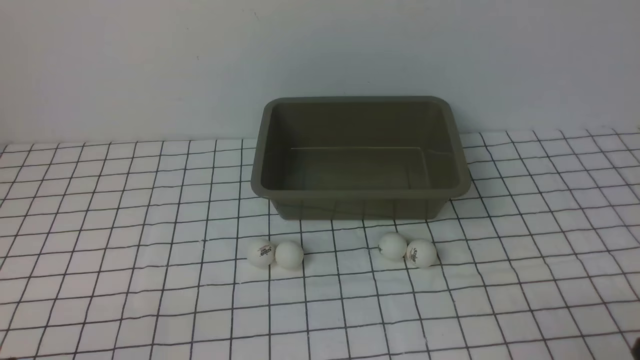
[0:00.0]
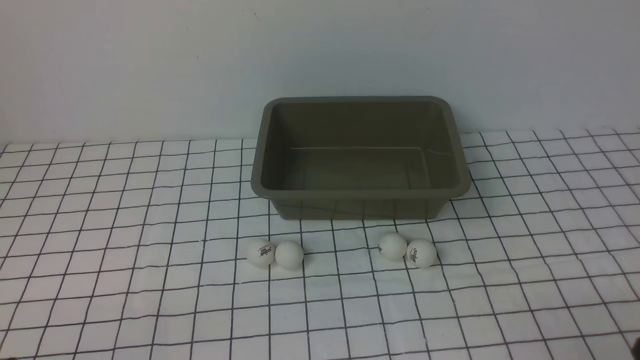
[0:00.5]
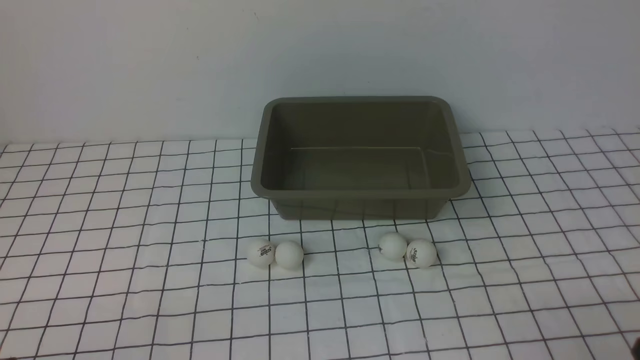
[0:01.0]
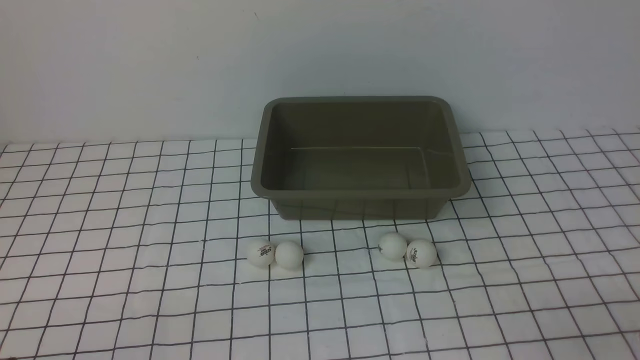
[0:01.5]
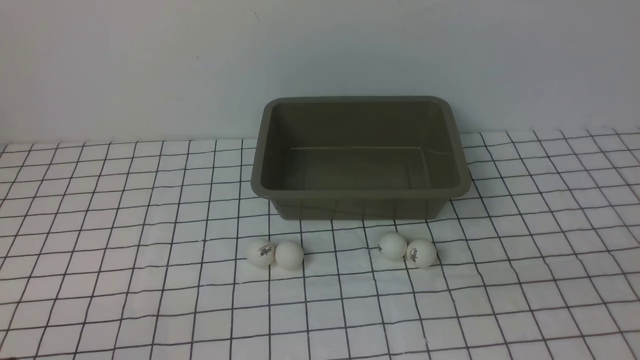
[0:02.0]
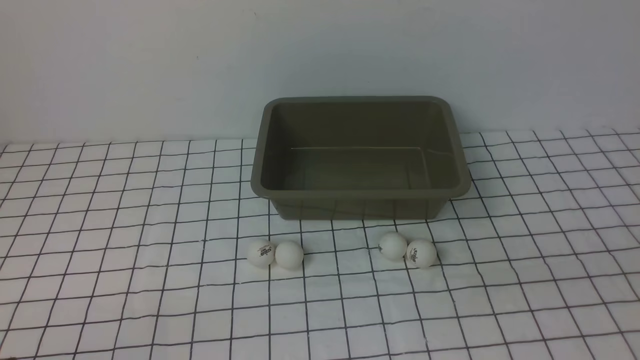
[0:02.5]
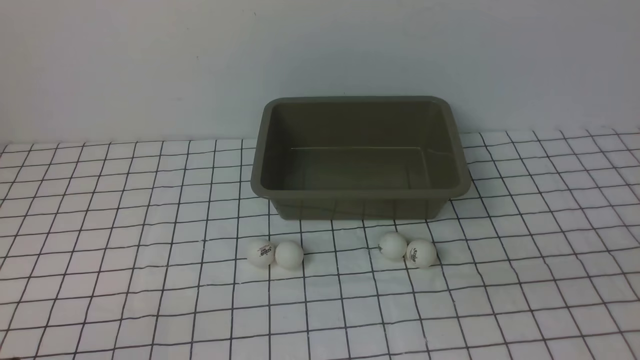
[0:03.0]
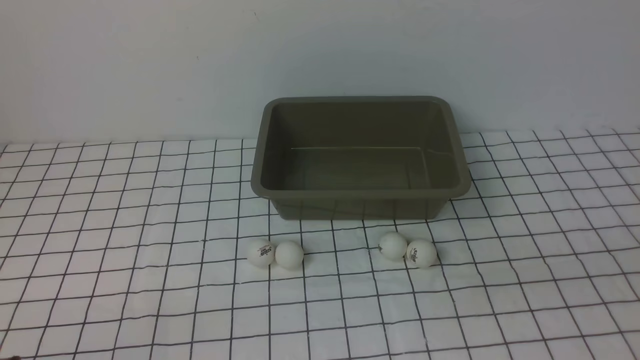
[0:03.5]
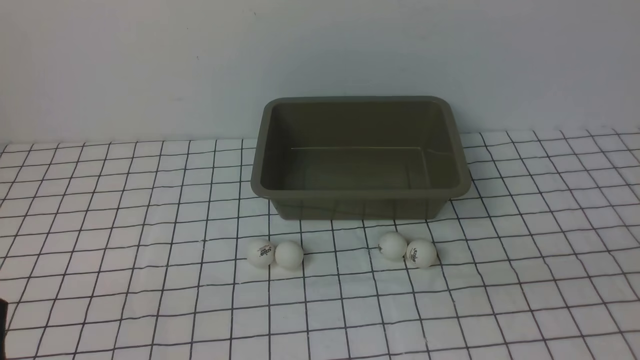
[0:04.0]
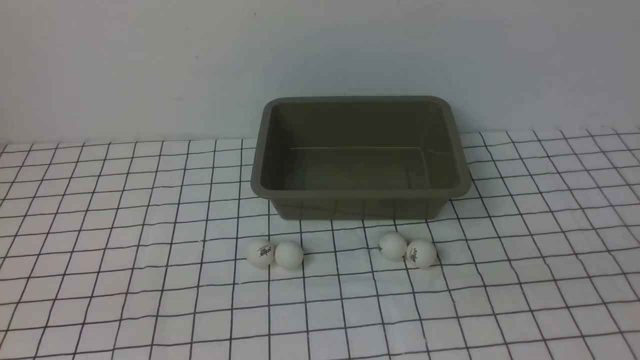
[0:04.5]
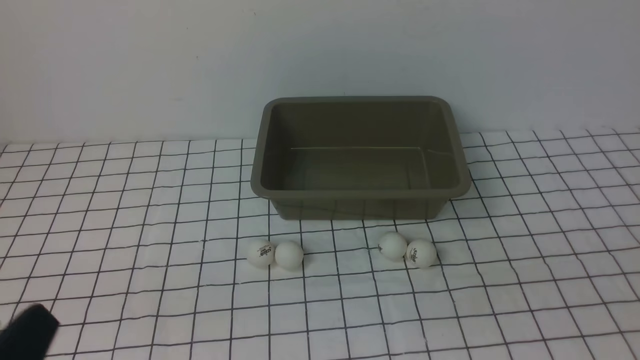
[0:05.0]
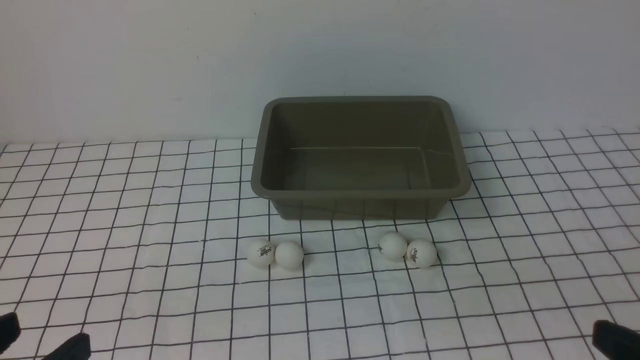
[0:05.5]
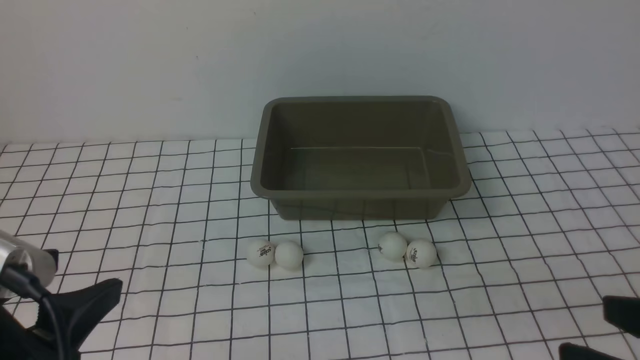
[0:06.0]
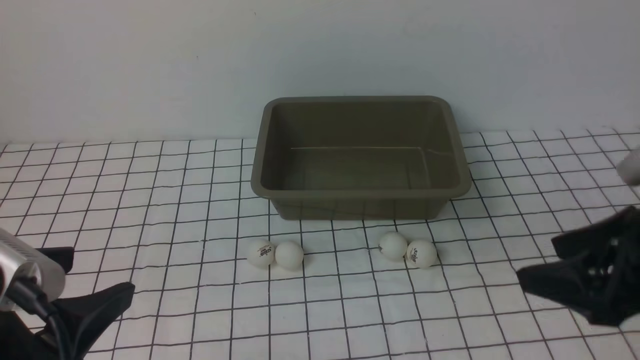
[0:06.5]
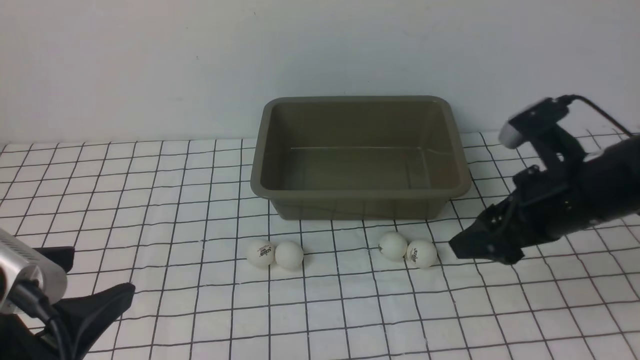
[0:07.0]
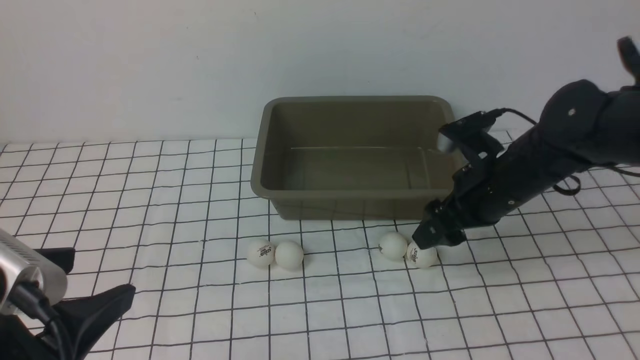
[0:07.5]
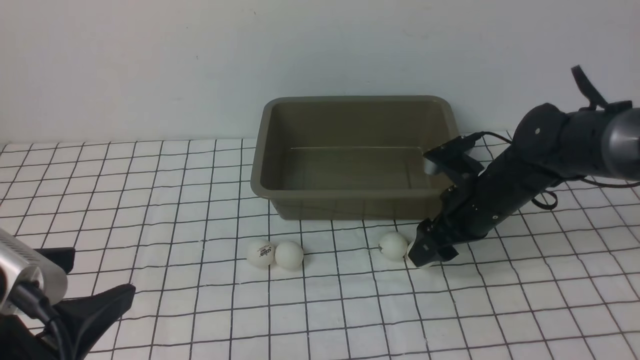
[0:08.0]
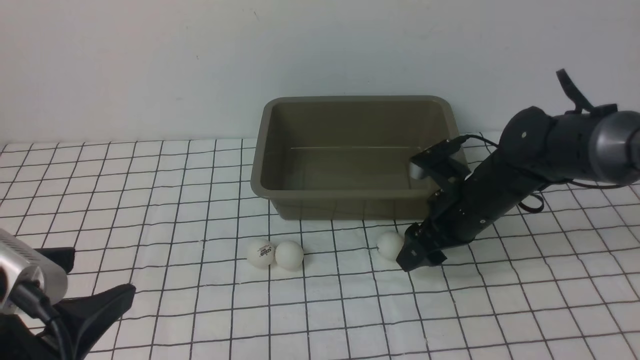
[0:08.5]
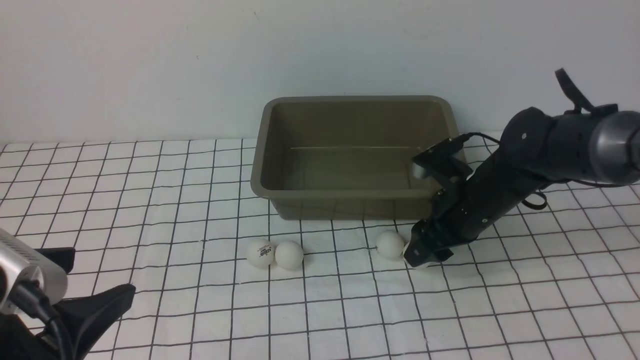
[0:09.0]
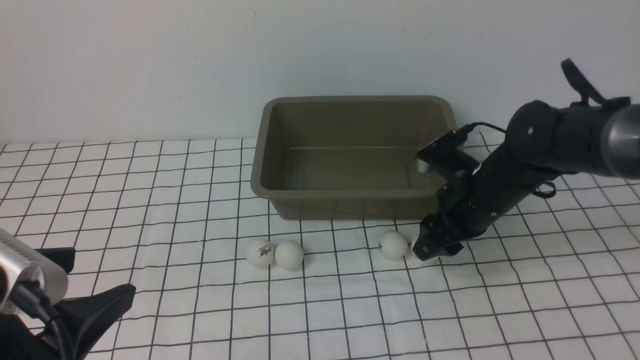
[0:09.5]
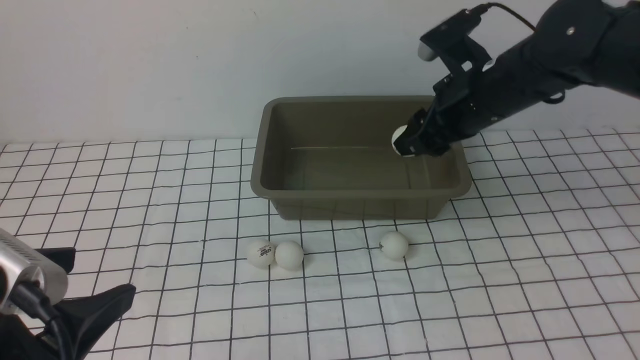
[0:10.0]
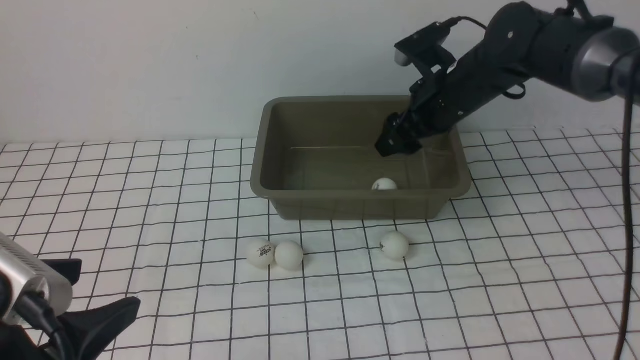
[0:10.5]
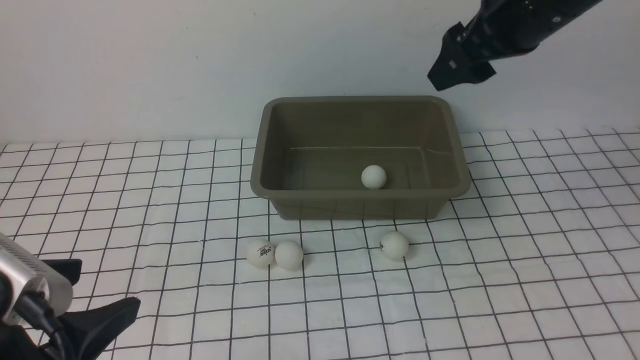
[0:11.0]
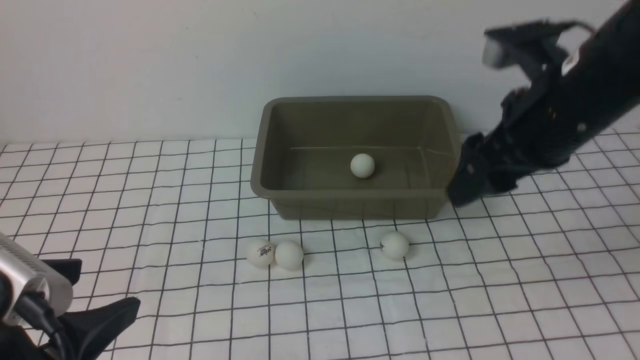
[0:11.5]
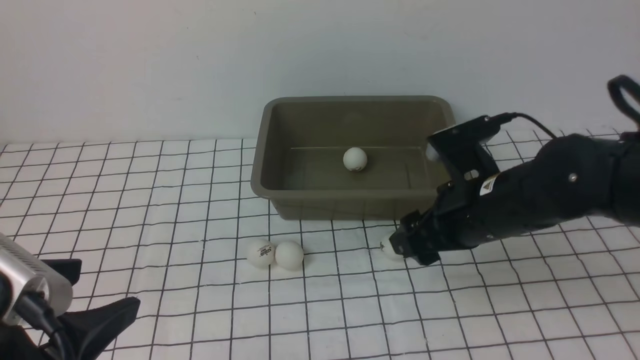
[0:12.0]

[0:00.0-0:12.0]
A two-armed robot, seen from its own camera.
Step, 0:00.0 to 0:09.5: use the right arm to clamp the table tennis ball closest to it.
Step, 0:10.0 to 0:10.5: use the right arm to put the table tennis ball into the box.
0:04.0 to 0:06.0: The right gripper shifts roughly 5 cm forward. Meanwhile the left gripper travels upward by roughly 10 cm.
0:06.0 to 0:08.0: The right gripper shifts some 30 cm forward and downward.
0:08.0 to 0:10.0: The right gripper moves upward, approximately 10 cm, and closes up.
0:10.0 to 0:12.0: The right gripper heads backward, covering about 10 cm, reaches about 10 cm upward, then returns, and opens its fingers.

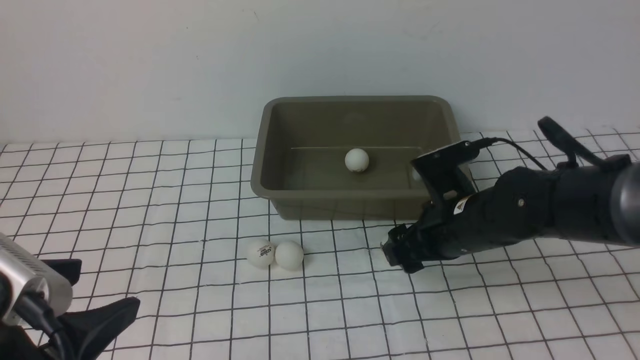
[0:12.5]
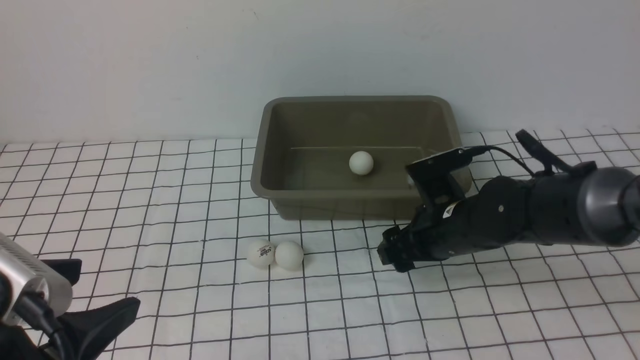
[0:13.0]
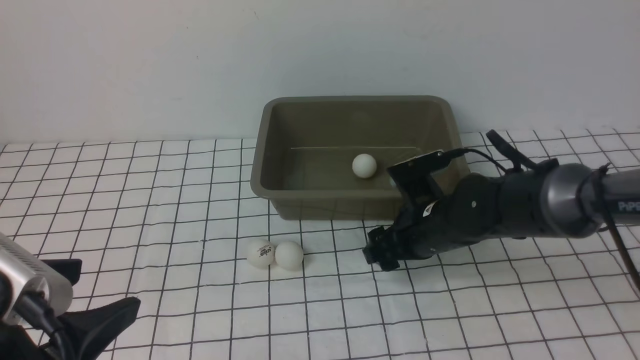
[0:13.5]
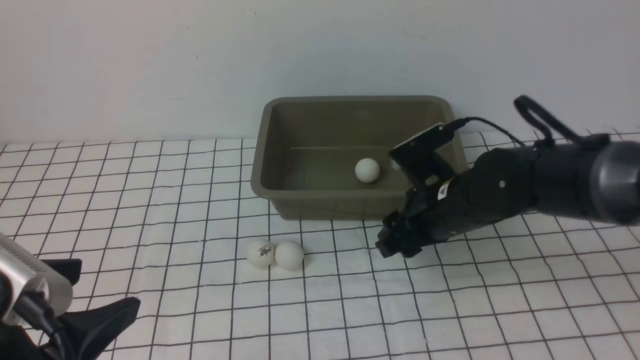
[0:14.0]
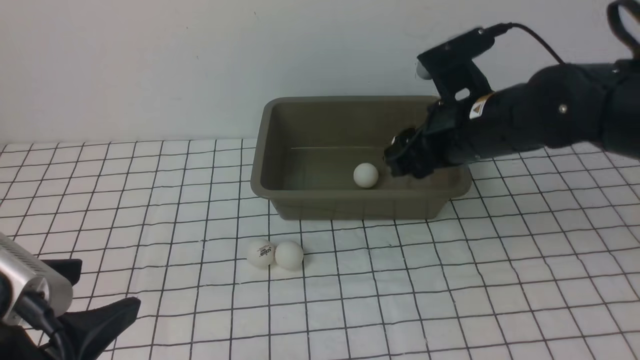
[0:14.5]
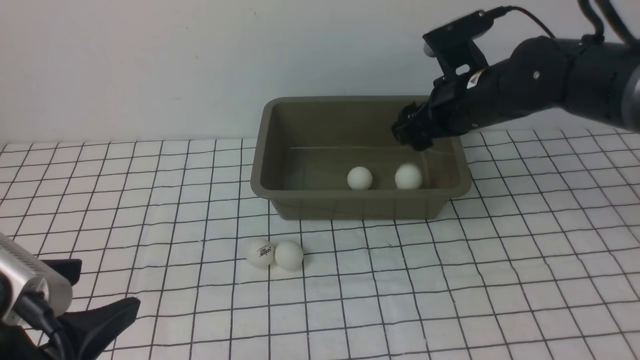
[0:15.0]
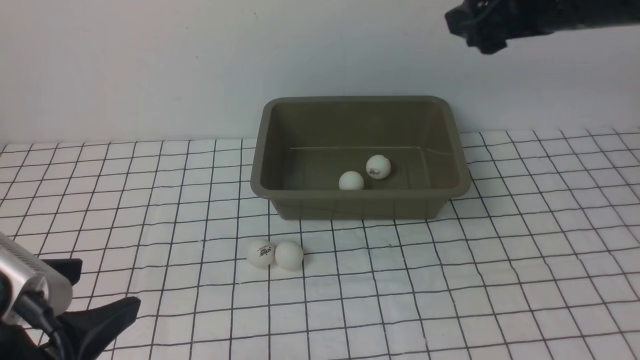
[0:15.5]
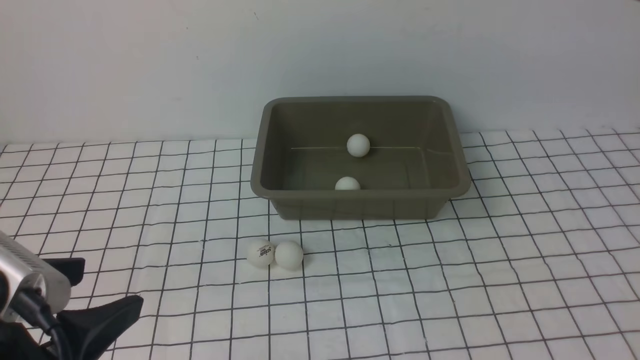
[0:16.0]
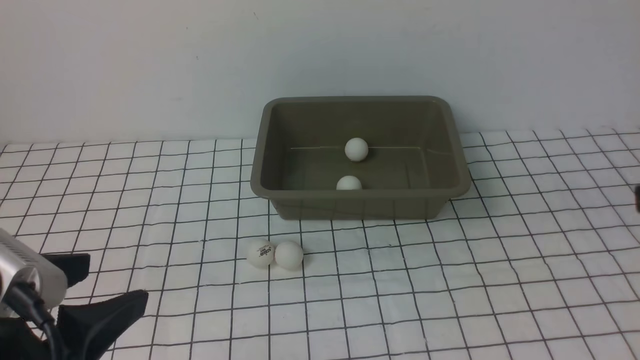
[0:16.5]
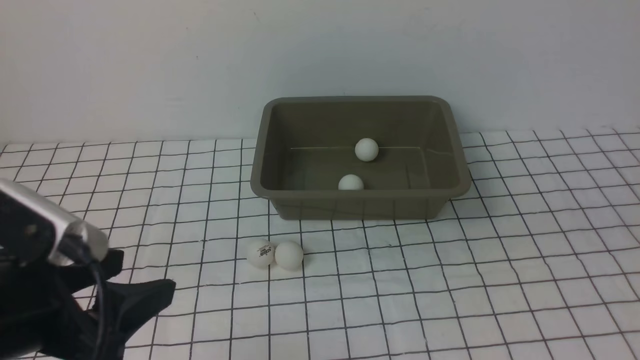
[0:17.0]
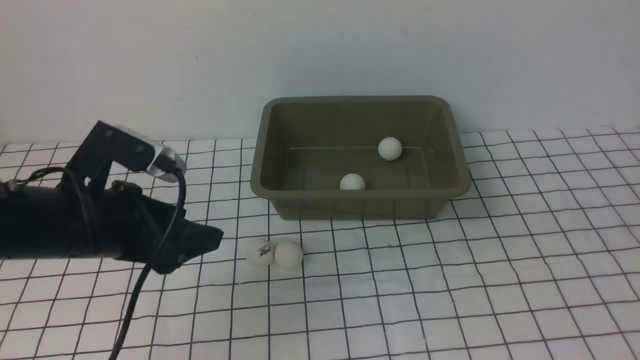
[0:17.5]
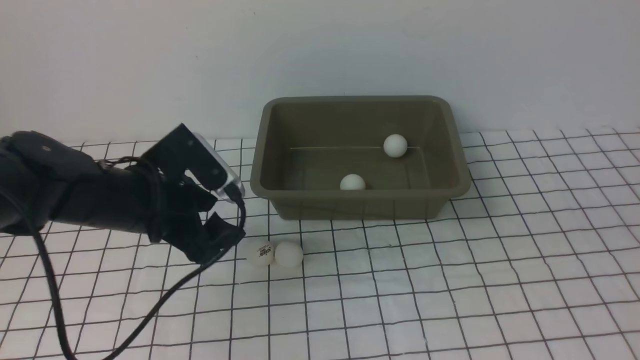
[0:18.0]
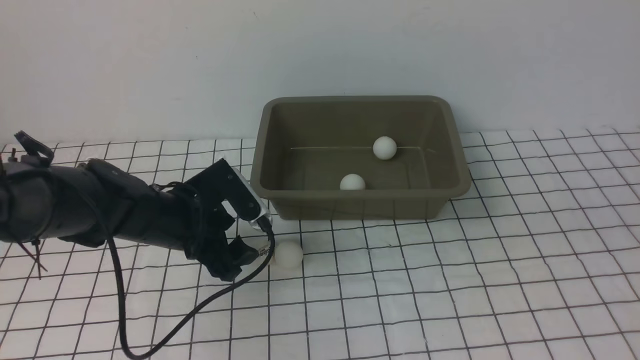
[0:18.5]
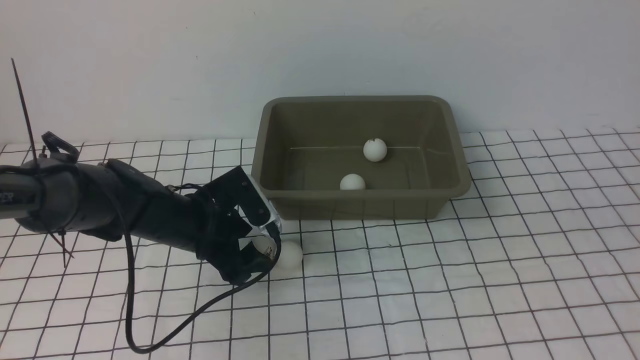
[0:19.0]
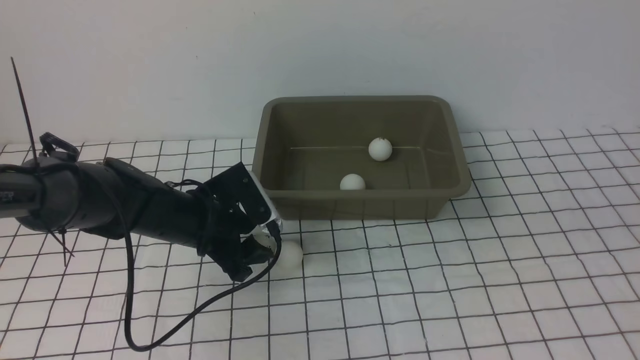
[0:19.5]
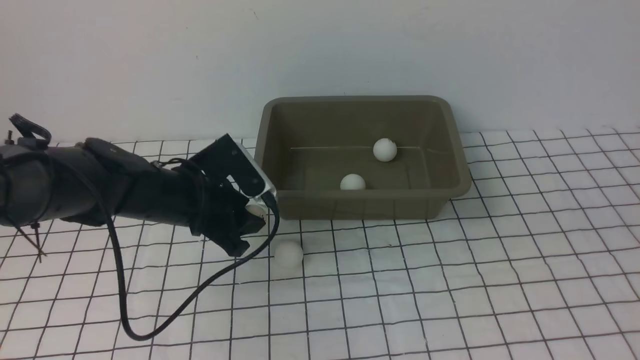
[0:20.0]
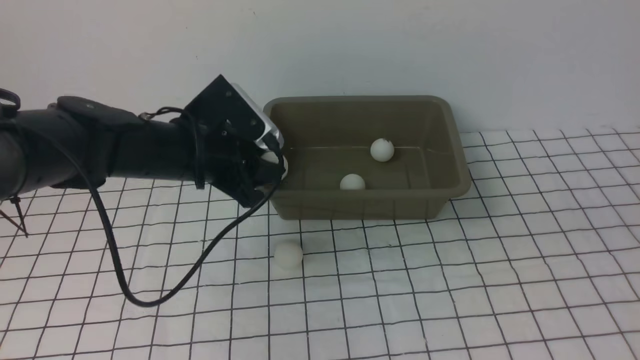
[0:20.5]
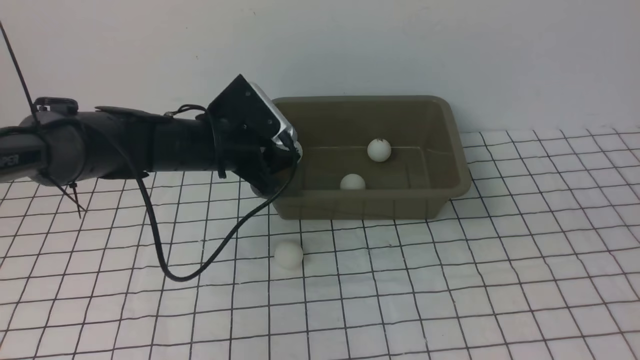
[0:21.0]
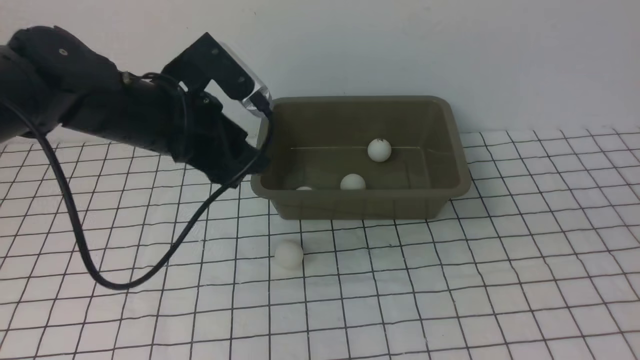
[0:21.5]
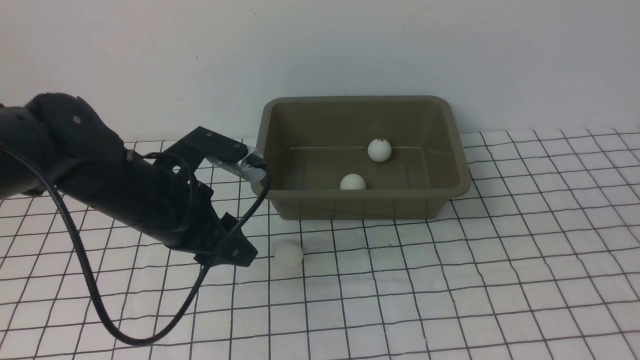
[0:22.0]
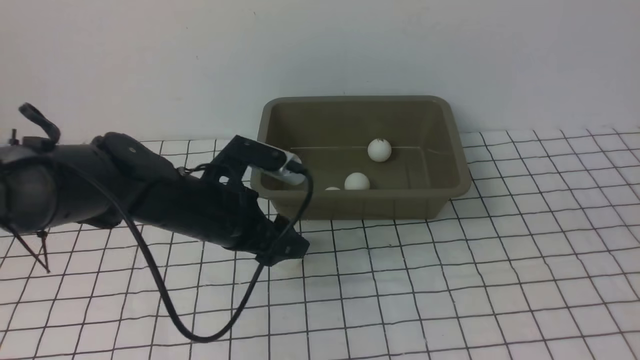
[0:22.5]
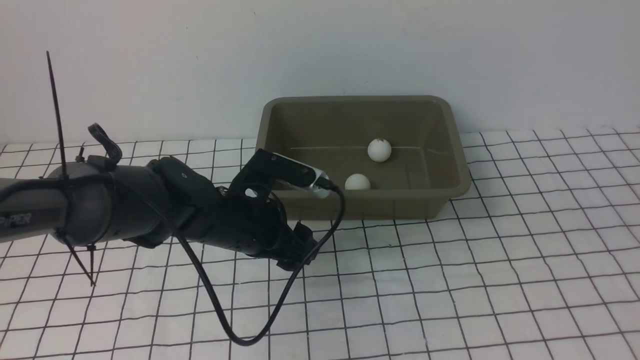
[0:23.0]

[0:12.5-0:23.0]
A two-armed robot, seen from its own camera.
Step, 0:14.5 to 0:15.0: use the right arm to put the table tennis ball into the box.
Step, 0:15.5 to 0:20.0: use the left arm to clamp the table tennis ball closest to it.
Step, 0:20.5 to 0:21.0: use the left arm to put the table tennis ball into the box.
0:12.5 to 0:14.5: The right gripper shifts approximately 10 cm upward, and closes.
0:14.5 to 0:16.5: The right gripper goes about 30 cm backward and to the right, and opens up.
0:16.5 to 0:19.0: The left gripper is displaced forward and downward by about 30 cm.
0:19.0 to 0:21.0: The left gripper shifts about 10 cm upward, and closes.
0:21.0 to 0:23.0: The left gripper goes roughly 10 cm backward and downward, and opens.
